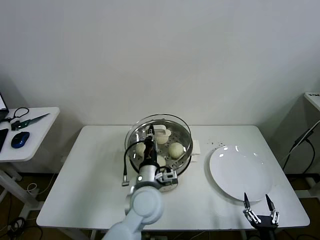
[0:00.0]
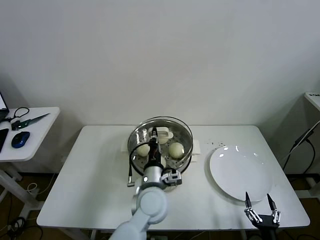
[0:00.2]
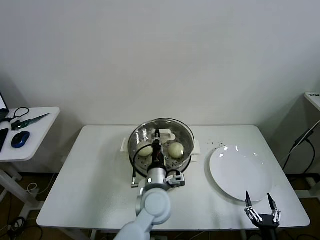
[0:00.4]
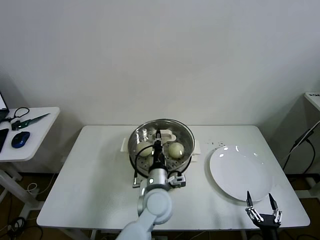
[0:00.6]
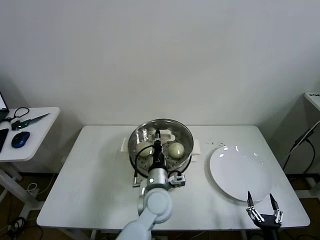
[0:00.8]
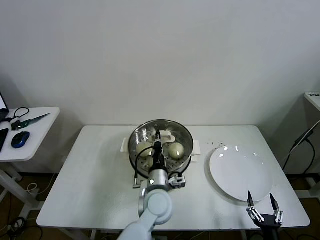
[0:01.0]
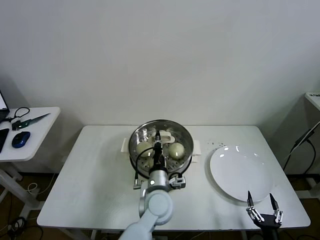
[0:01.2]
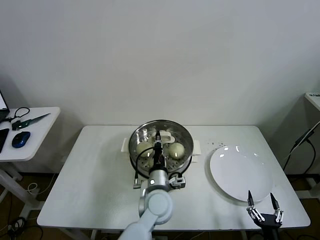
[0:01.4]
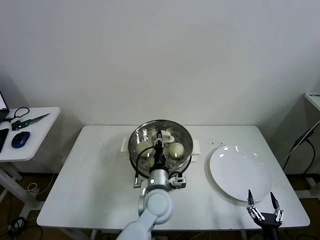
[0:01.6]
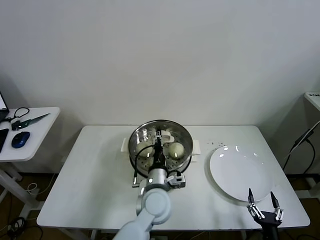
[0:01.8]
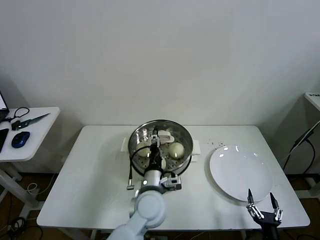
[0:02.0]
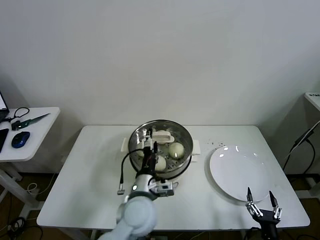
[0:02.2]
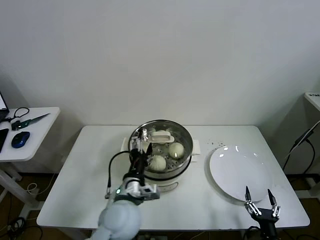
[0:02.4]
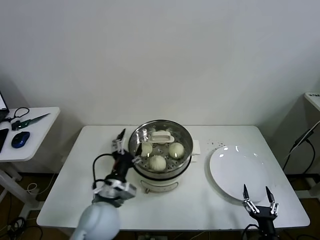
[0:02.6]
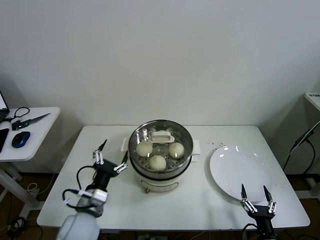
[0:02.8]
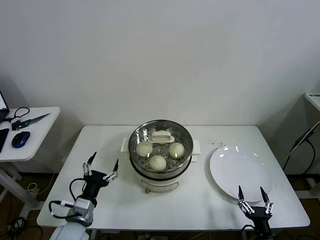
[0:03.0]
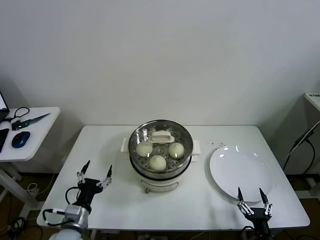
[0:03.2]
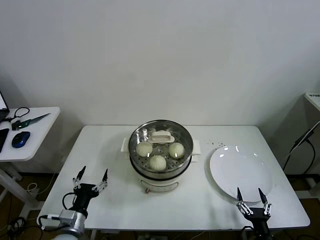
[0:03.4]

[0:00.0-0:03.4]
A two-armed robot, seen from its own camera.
Task of the whole recording: take steamed baozi put them in steamer then cover it.
Step, 0:00.0 to 0:02.2: Place the pot lid on the steamer with left gripper.
0:00.0 to 0:01.6: The left gripper shifts about 5 cm downward.
0:01.6 to 0:03.4: The left gripper is displaced to the left by about 30 cm, and opens.
